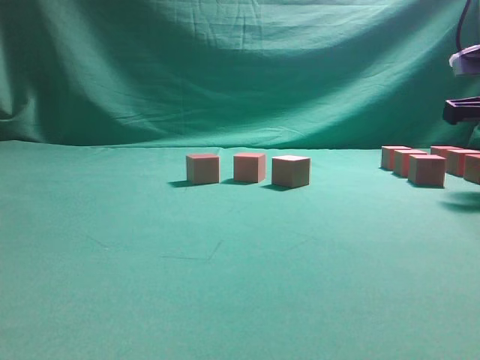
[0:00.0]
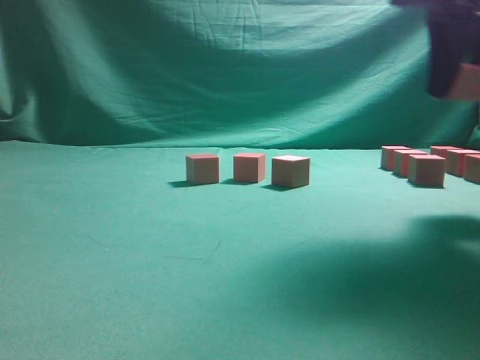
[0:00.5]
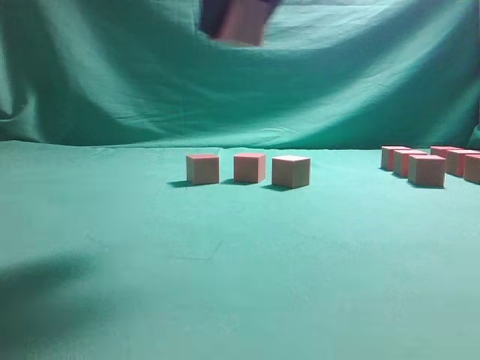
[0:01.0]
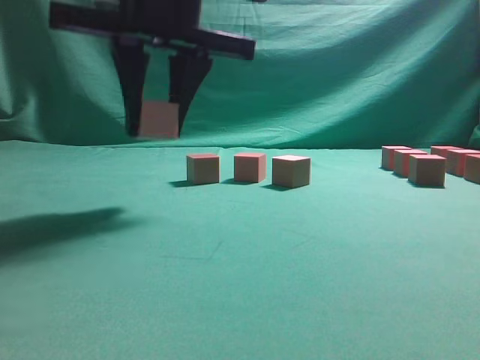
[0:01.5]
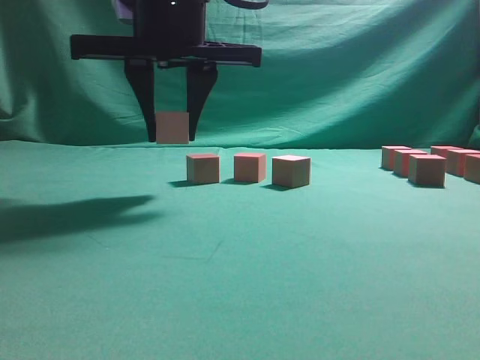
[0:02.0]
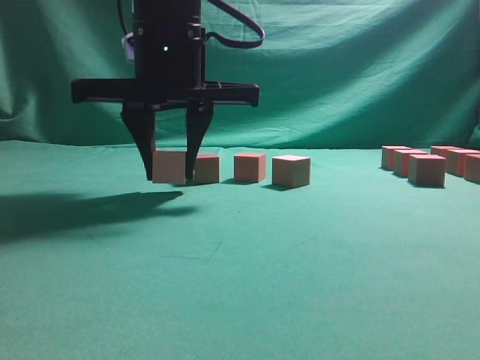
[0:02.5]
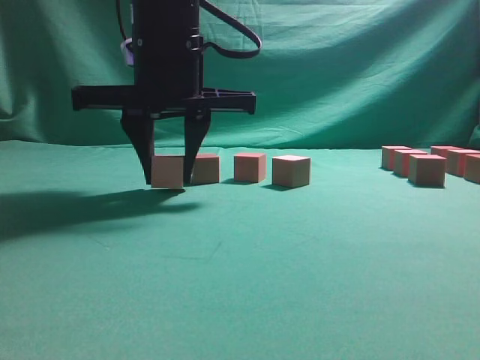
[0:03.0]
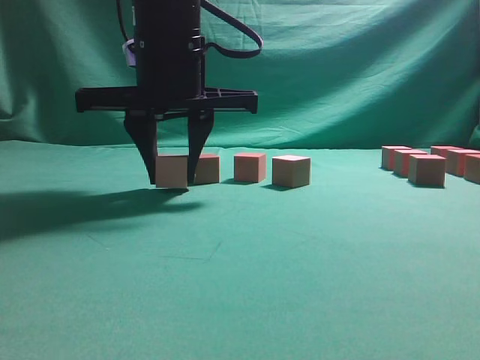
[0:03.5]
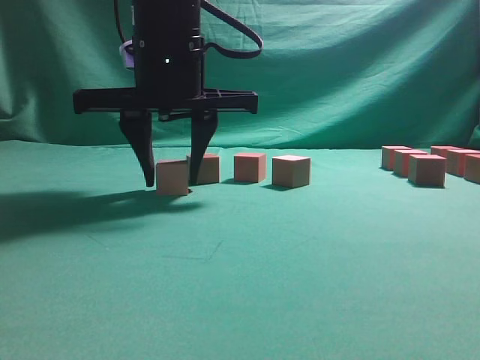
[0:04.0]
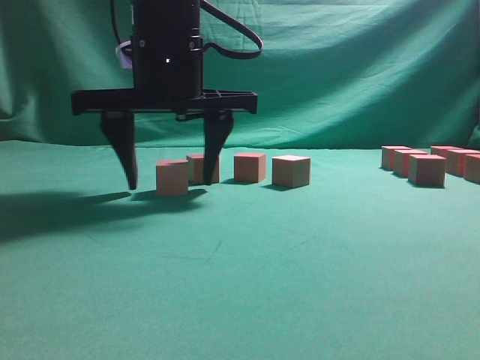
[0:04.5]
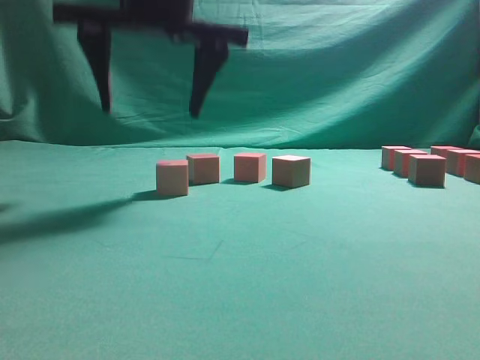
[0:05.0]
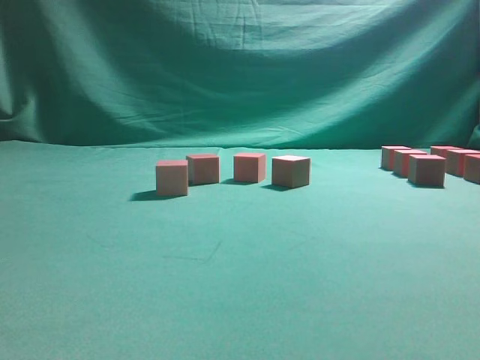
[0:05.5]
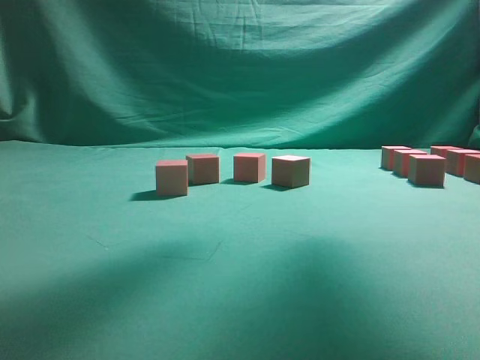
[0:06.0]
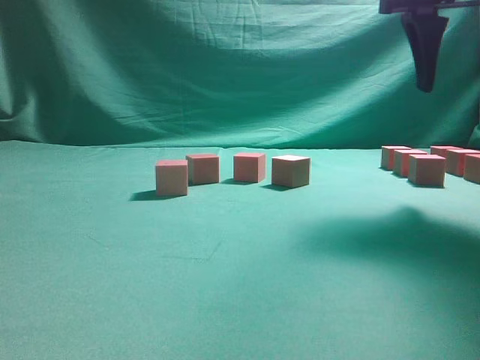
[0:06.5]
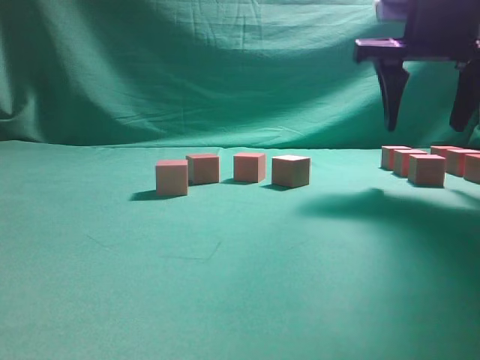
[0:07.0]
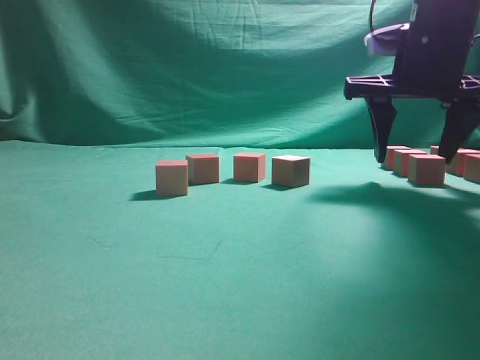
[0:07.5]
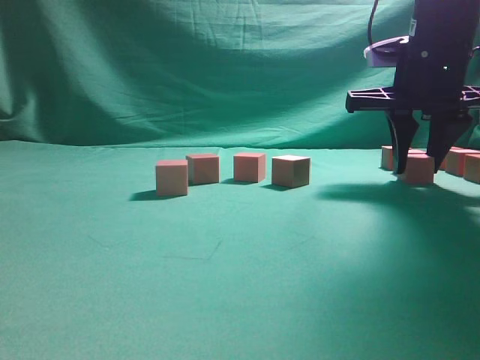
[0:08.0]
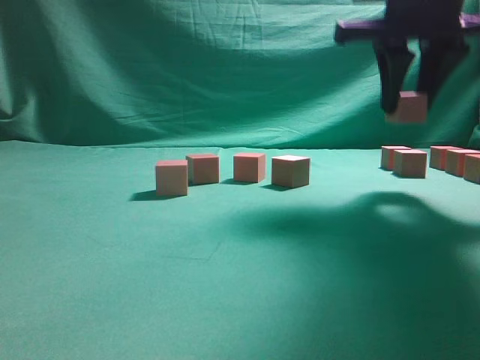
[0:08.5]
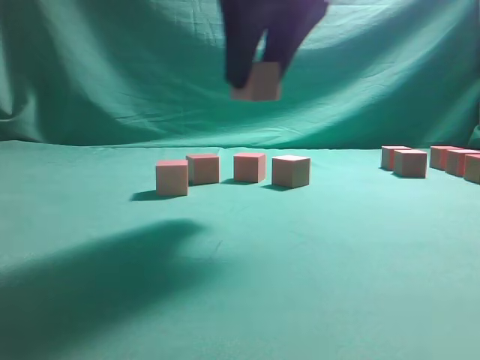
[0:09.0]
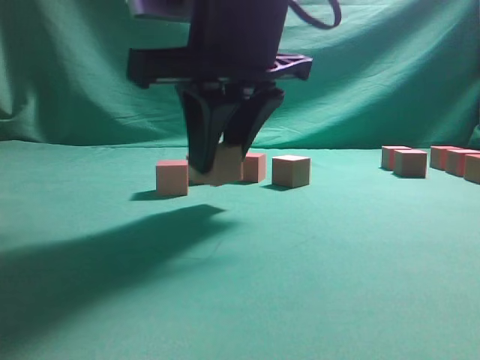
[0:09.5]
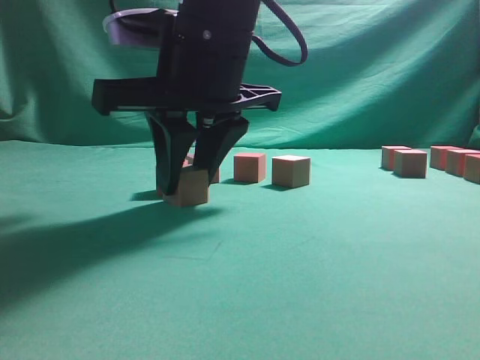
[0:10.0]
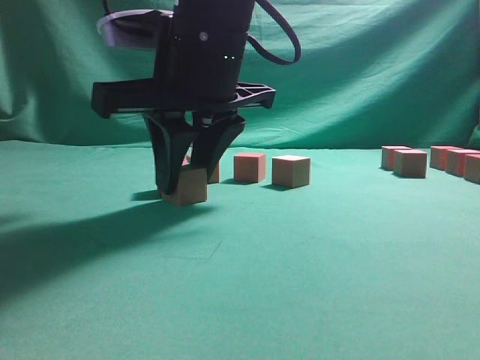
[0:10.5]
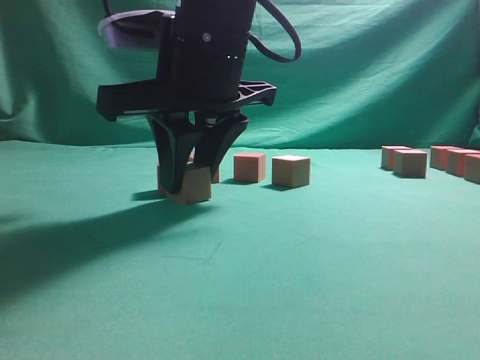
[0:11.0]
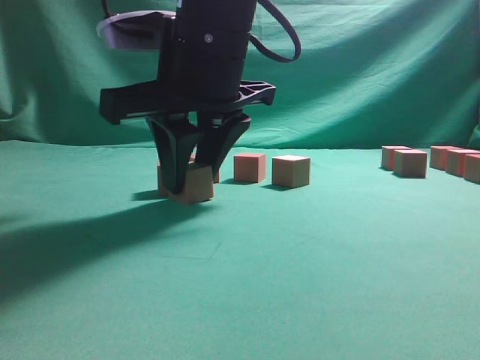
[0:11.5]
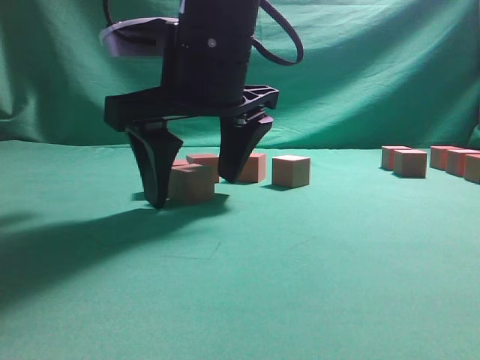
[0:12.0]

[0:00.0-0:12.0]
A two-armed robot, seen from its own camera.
Task of the whole recording: pick up the multiple cubes in two columns one by one and place them in another position on the table.
Step, 0:00.5 to 0:05.0: Place the block at the correct position to assemble the letter S.
Step, 0:05.5 to 0:08.0: Pick up the block on the table.
0:00.0 to 0:02.0: The right gripper moves to the left, about 35 cm.
0:02.0 to 0:04.0: The grippers move only a little.
0:04.0 to 0:06.0: The right gripper travels upward and to the right by approximately 25 cm.
0:06.0 to 0:08.0: The right gripper heads downward, covering some 20 cm, and closes up.
0:08.0 to 0:10.0: The right gripper is displaced to the left and backward by about 25 cm.
0:10.0 to 0:12.0: The right gripper opens.

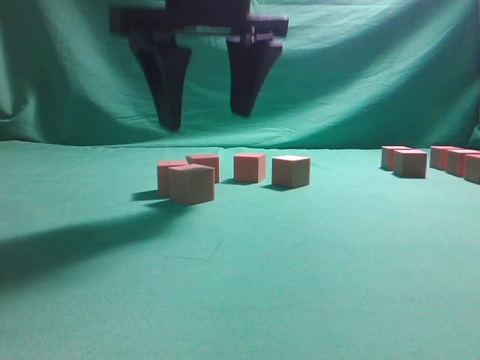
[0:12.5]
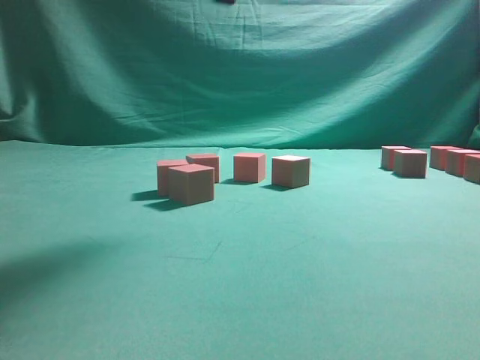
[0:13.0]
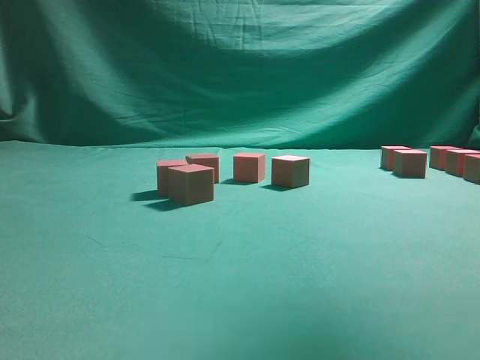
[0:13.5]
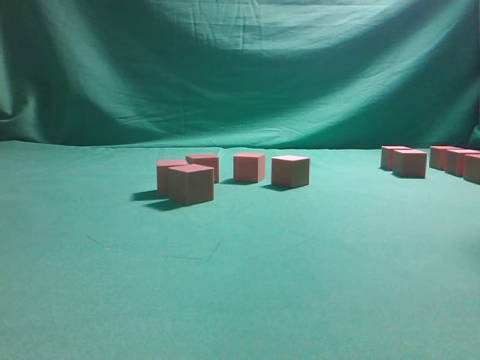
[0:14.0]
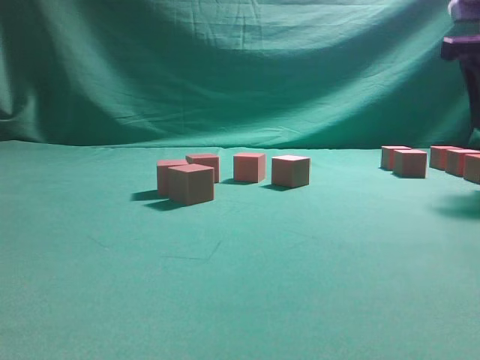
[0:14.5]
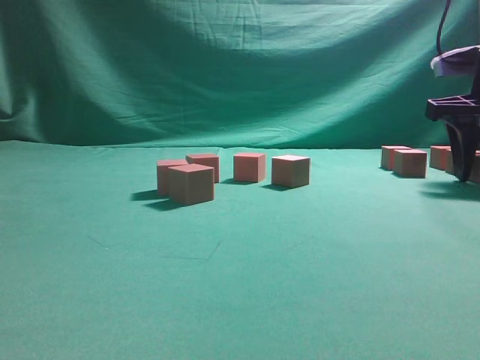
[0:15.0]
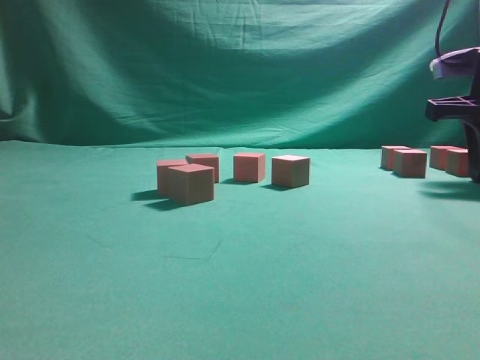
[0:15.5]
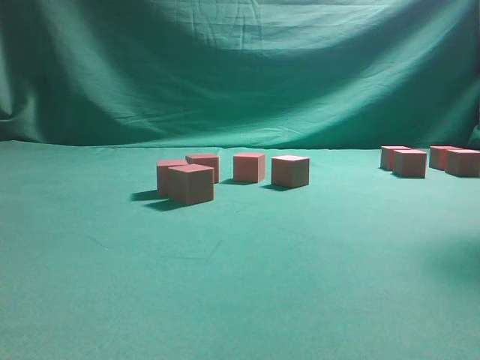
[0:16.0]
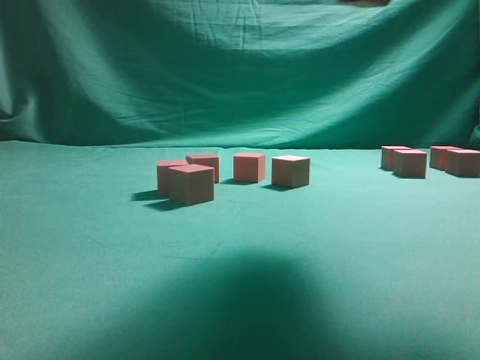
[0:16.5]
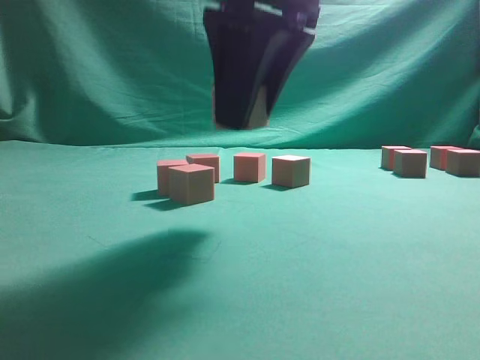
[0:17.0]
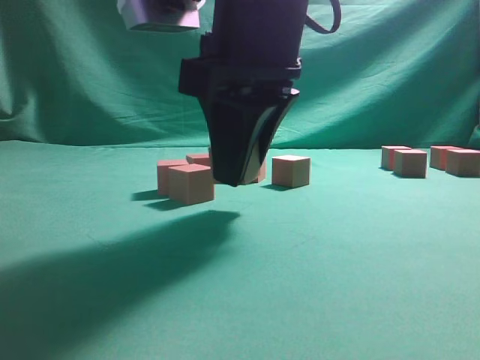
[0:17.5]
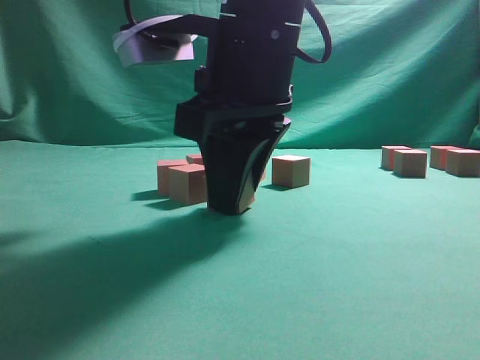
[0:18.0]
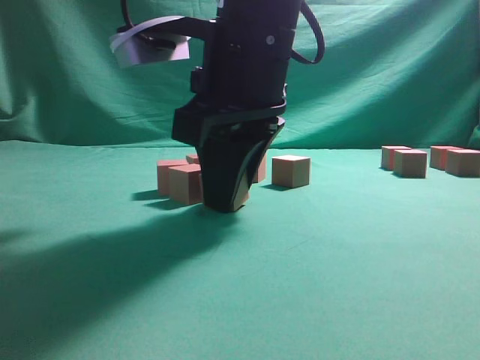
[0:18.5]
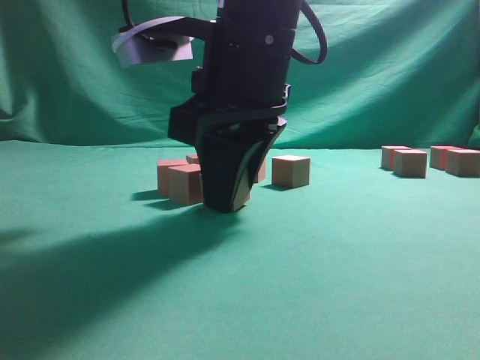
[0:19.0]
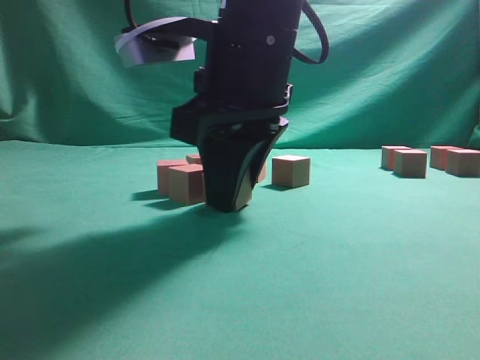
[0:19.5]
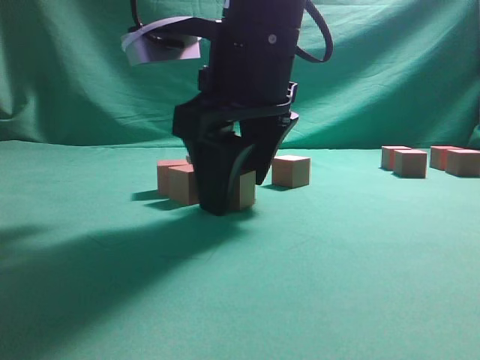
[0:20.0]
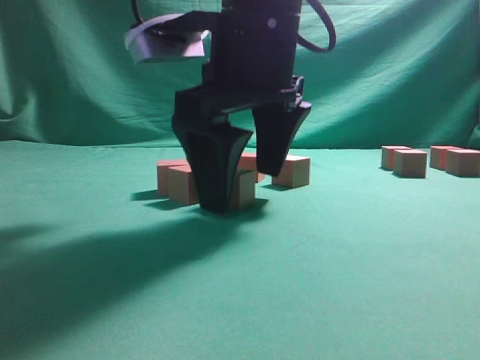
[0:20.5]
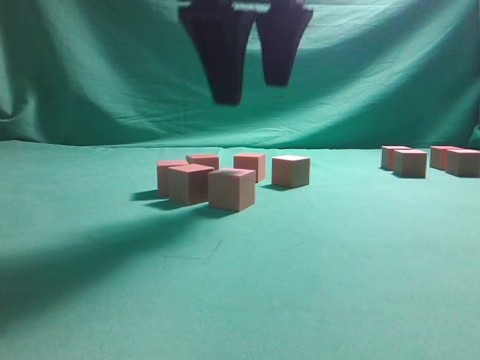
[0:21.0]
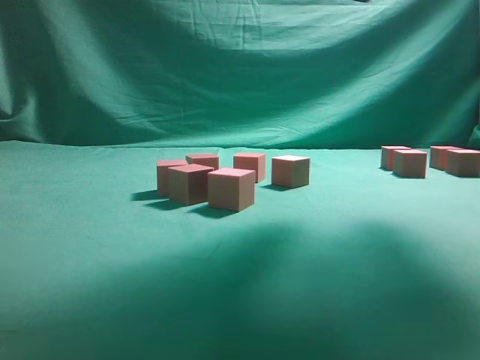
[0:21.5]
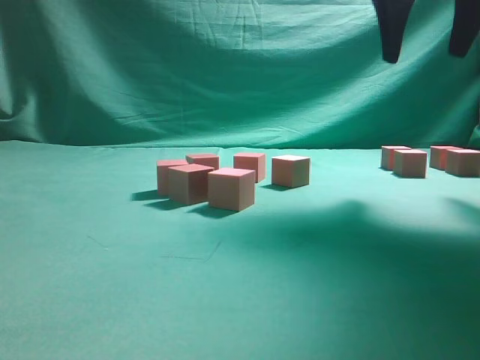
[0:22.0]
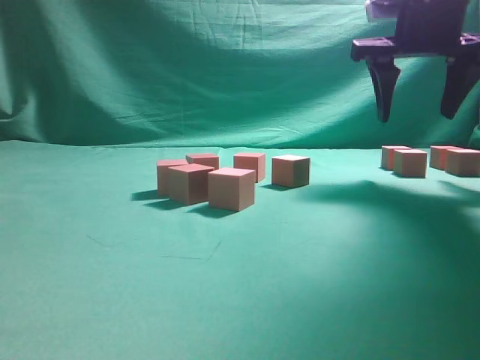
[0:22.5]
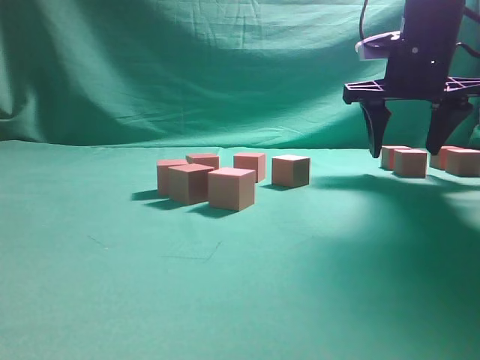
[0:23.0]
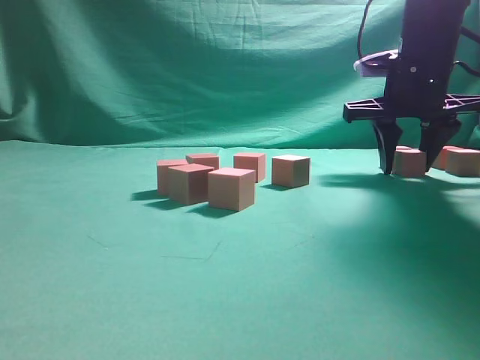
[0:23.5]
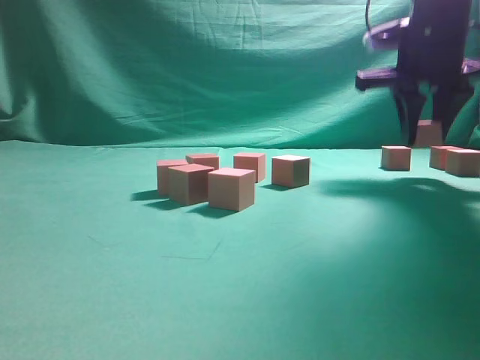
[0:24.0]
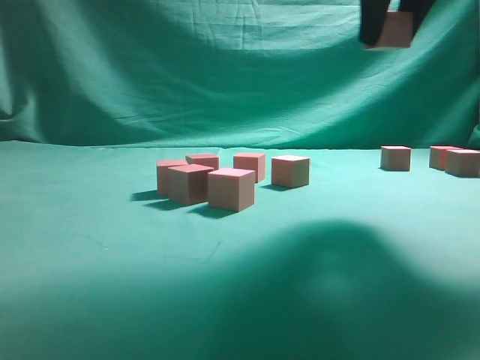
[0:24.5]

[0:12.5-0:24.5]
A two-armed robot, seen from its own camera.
Task of the whole recording: pick up the multiple cubes in two columns one by one and place them in another position on the table.
Step, 0:13.0 to 0:15.5: Pick up the block on the table.
Step, 0:16.0 to 0:21.0: Place the block at the correct position to assemble the letter S.
Step, 0:21.5 to 0:24.0: Pick up the block on the table.
0:12.5 to 0:14.5: The right gripper is displaced to the right by some 30 cm.
0:14.5 to 0:16.5: The right gripper shifts about 20 cm to the left, backward and upward, and closes up.
0:16.5 to 0:18.5: The right gripper travels downward and to the left by approximately 20 cm.
0:18.5 to 0:20.5: The right gripper opens its fingers.
0:20.5 to 0:22.5: The right gripper is displaced to the right and forward by roughly 20 cm.
0:22.5 to 0:24.5: The right gripper shifts roughly 15 cm backward, upward and to the left, and closes its fingers.

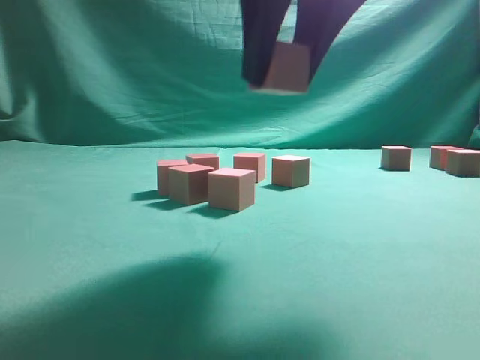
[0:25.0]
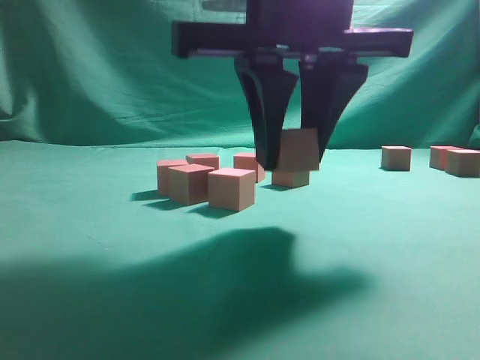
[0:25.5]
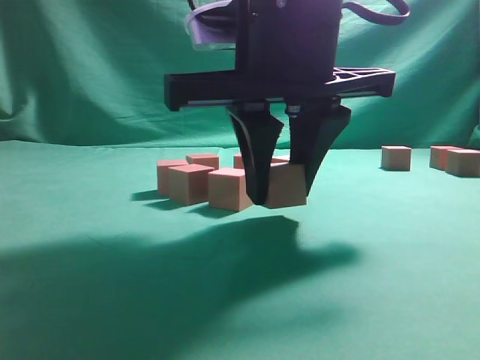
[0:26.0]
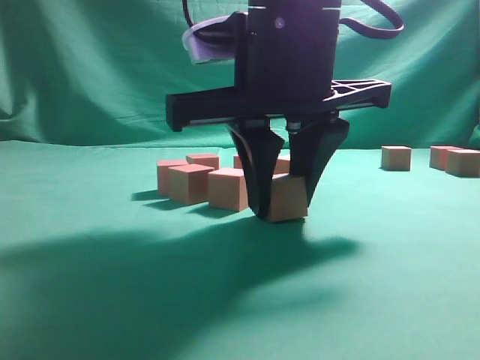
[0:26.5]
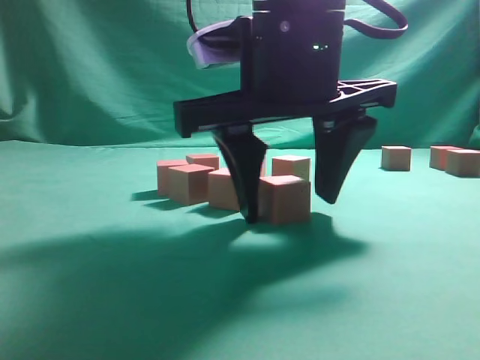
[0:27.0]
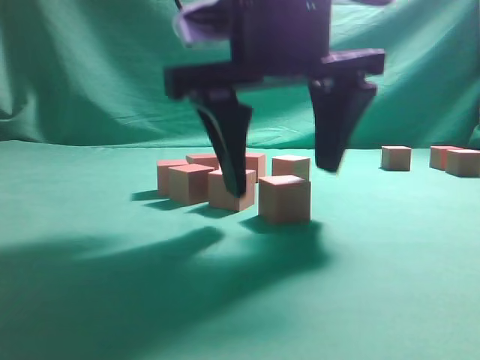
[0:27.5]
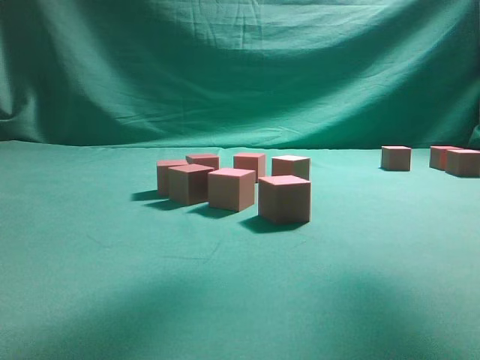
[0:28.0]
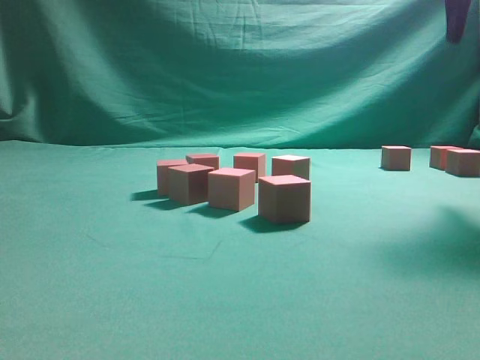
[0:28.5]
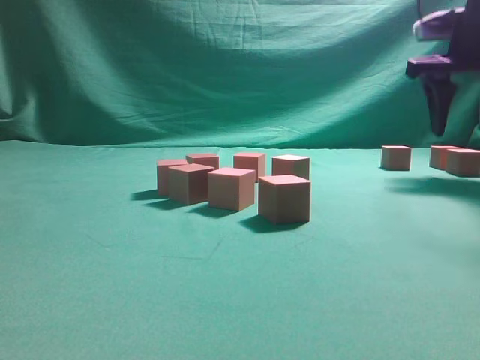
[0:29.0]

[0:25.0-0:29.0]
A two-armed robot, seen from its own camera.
Task of the whole recording: pick up the multiple cubes in two columns one by one and place them in another position on the table.
Step, 0:25.0 to 0:27.5: Place the block at the correct position to assemble the letter S.
0:25.0 to 0:27.0: The right gripper travels downward by some 10 cm, and opens up.
0:27.0 to 0:29.0: The right gripper goes about 30 cm to the right and forward.
